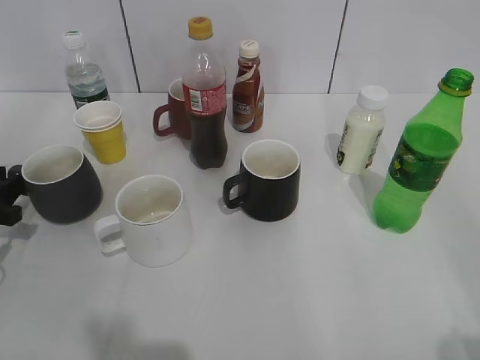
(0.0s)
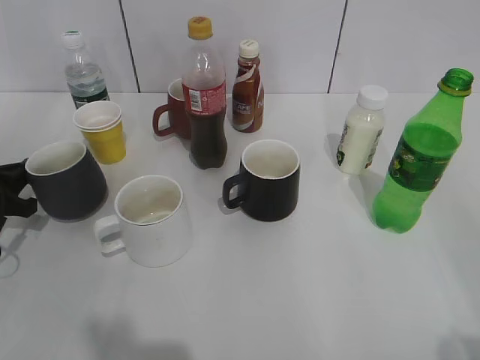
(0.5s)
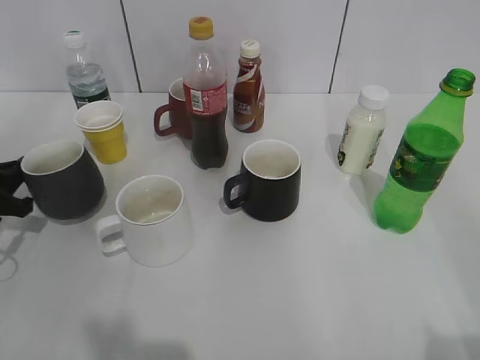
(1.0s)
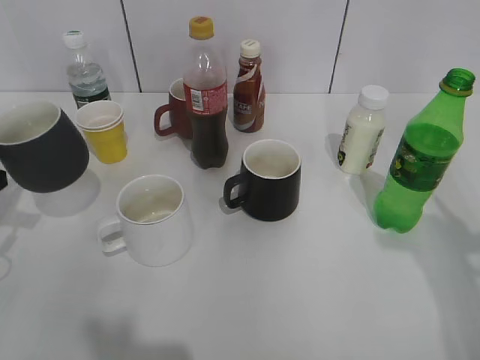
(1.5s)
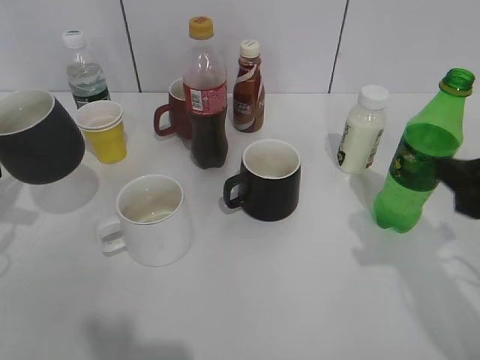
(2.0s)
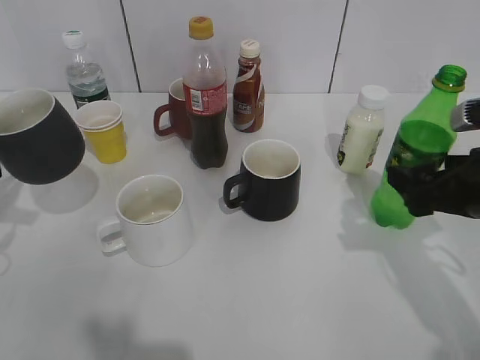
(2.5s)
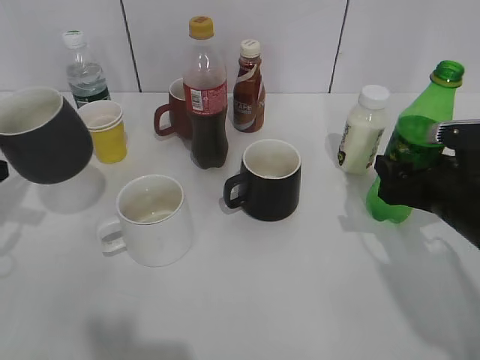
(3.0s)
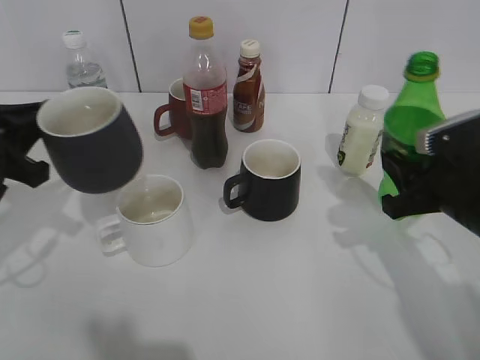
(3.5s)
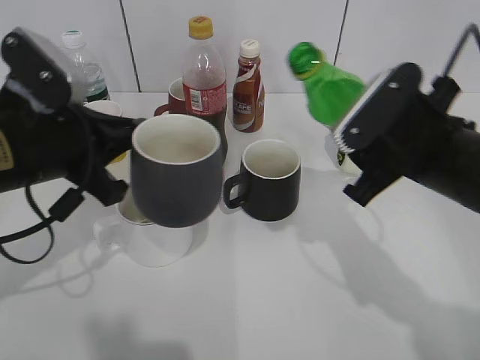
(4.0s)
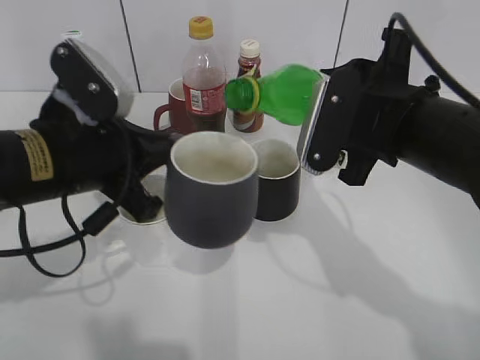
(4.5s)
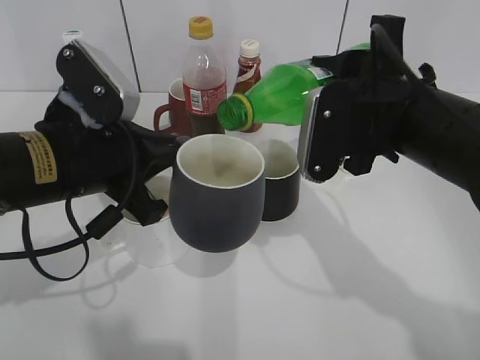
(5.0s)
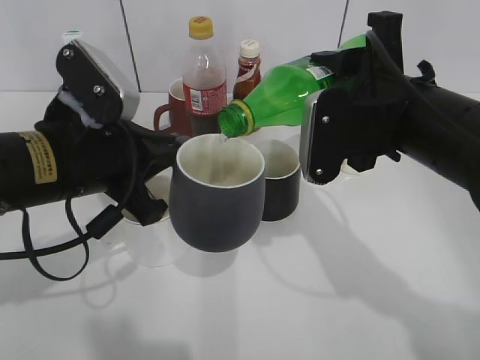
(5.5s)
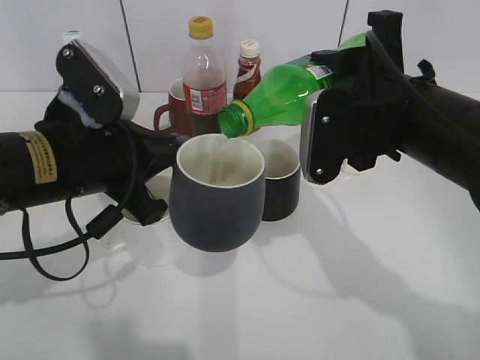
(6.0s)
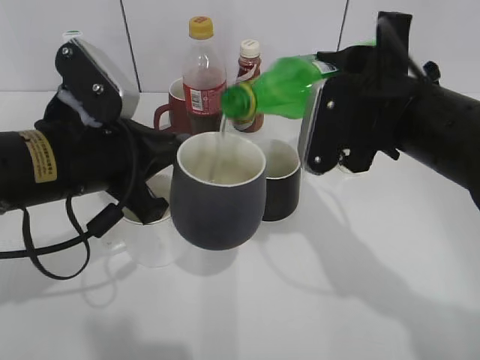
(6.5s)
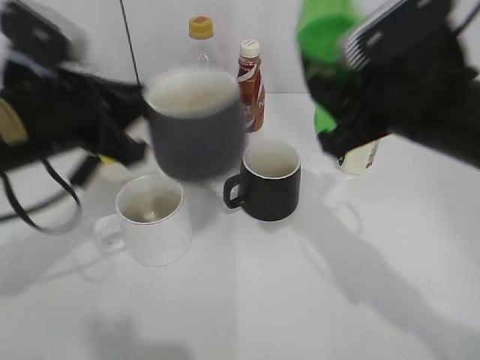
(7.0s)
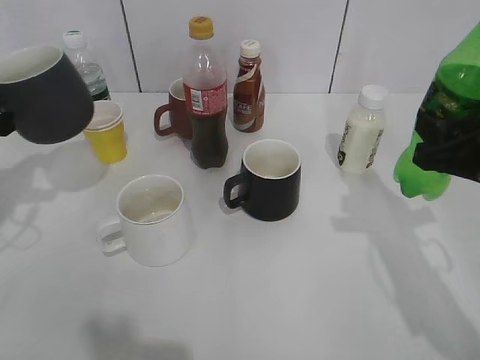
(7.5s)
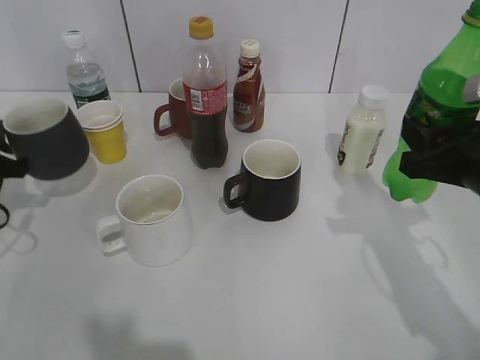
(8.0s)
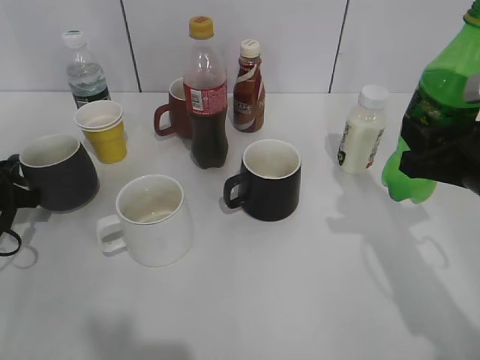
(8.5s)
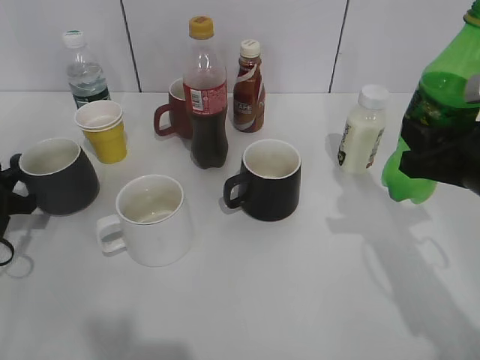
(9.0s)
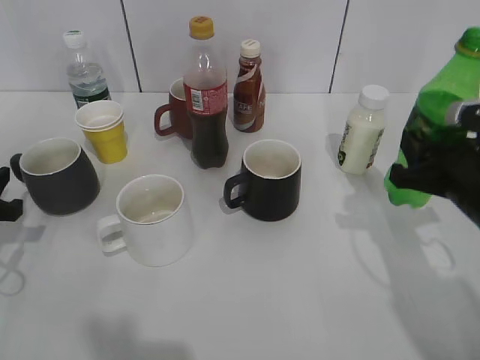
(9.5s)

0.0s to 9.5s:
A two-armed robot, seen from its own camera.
Step, 1.0s to 1.5s: Lift the grey cup with left gripper.
Step, 2.0s to 3.0s: Grasp the bottle with sprite with right gripper.
Step, 3.5s to 6.5s: Pour the sprite from bottle to cup with right gripper.
Step, 7.0s to 9.0s: Place the grey cup on the table with left gripper.
0.0s to 2.0s: The right gripper shifts roughly 20 cm forward, while the left gripper goes approximately 10 cm upward, and closes up.
2.0s to 4.0s: The left gripper moves to the right, about 15 cm. The right gripper shifts roughly 10 cm to the left and forward, reaches roughly 10 cm downward, then returns, and closes up.
5.5s to 7.5s: The left gripper is displaced to the left by roughly 15 cm. The right gripper is displaced to the right by some 10 cm.
7.5s to 9.5s: The left gripper is displaced downward by some 10 cm, and opens up, while the right gripper changes place by approximately 5 cm.

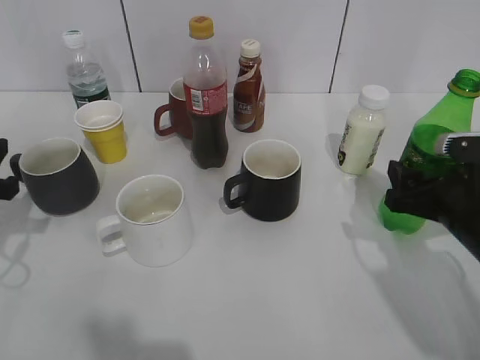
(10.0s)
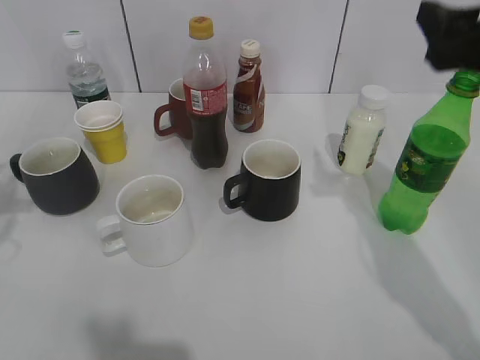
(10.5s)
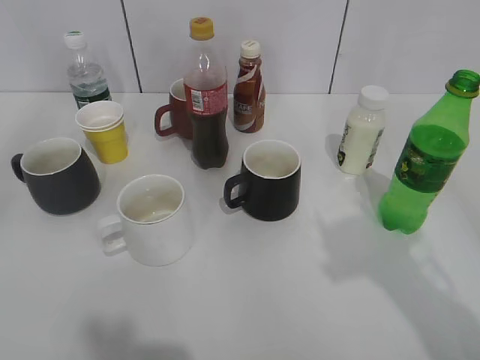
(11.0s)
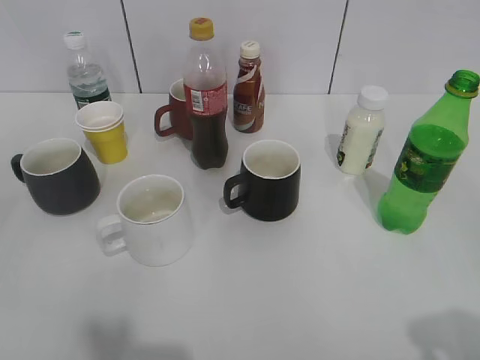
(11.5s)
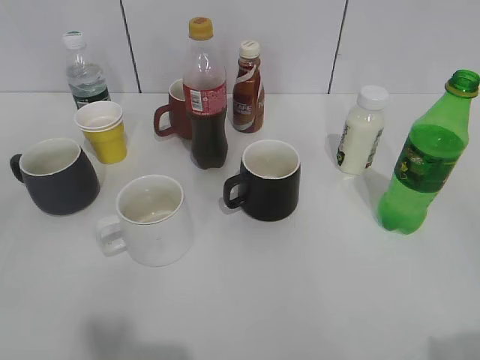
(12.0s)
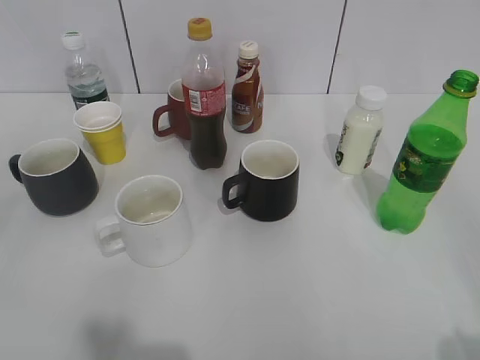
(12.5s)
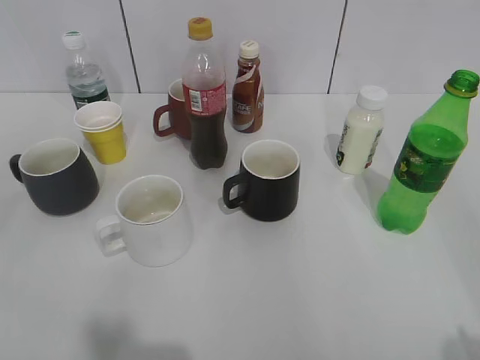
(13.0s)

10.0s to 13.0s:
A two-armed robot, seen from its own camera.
10.0s to 11.5s: Both grippers move backward and upward, roughly 30 cm.
11.5s to 13.0s: The left gripper closes up.
